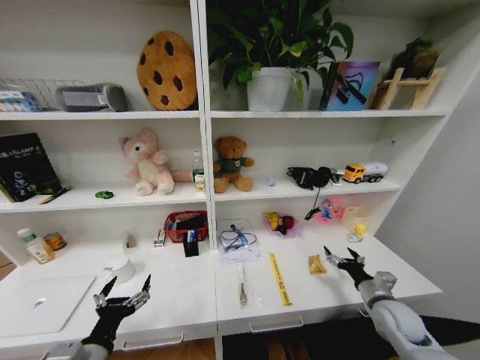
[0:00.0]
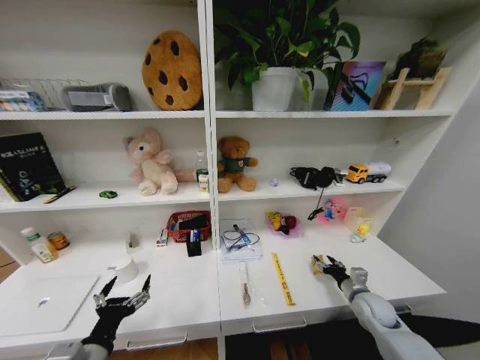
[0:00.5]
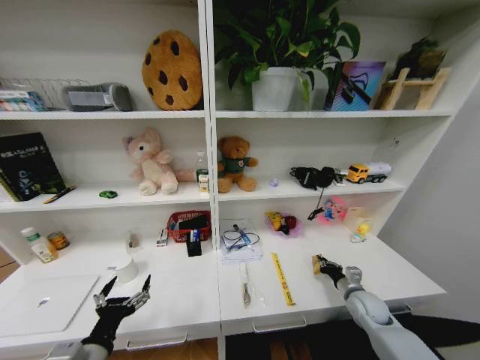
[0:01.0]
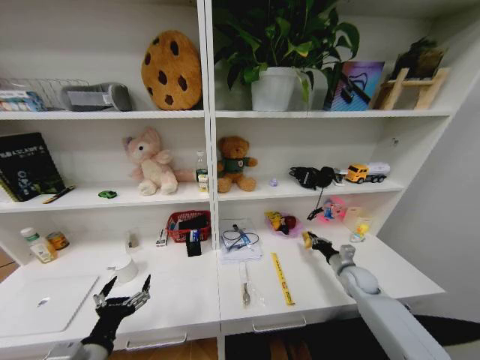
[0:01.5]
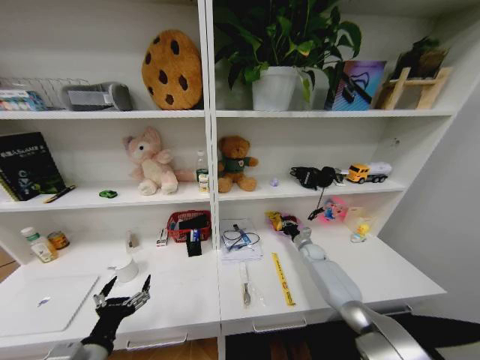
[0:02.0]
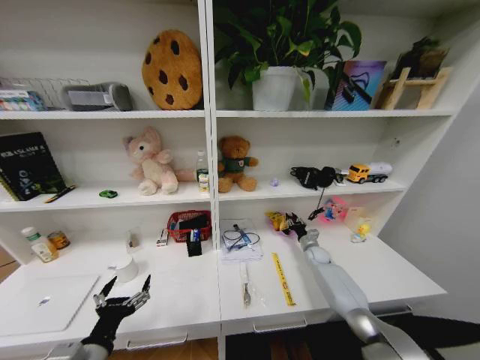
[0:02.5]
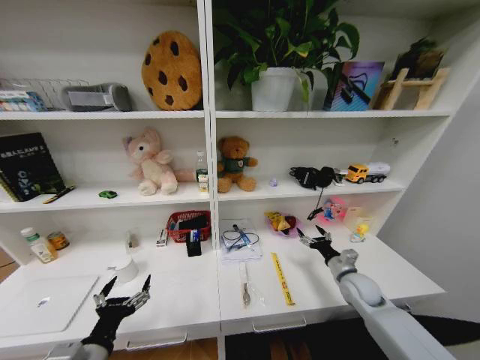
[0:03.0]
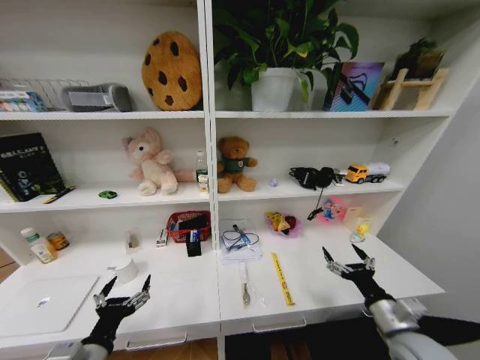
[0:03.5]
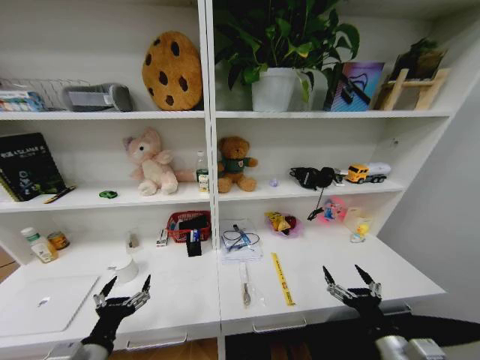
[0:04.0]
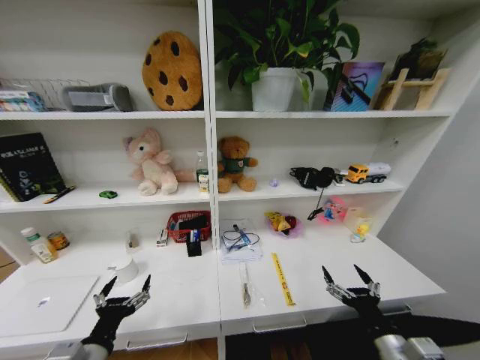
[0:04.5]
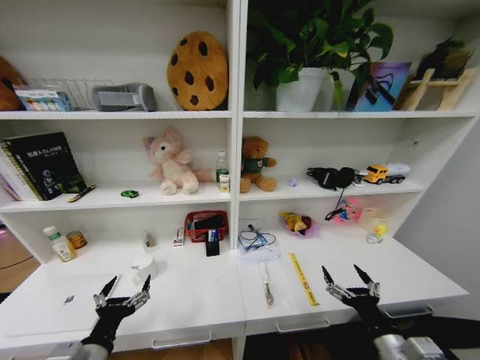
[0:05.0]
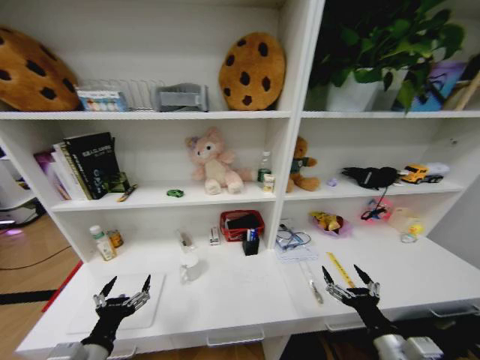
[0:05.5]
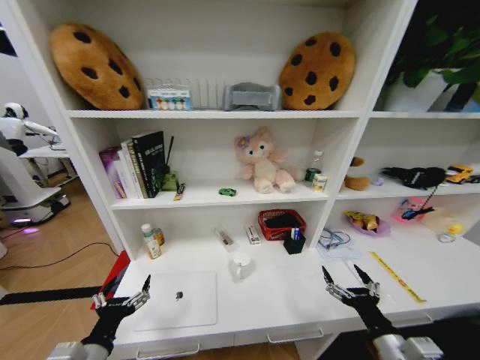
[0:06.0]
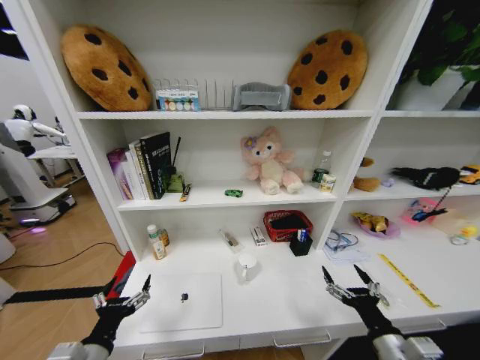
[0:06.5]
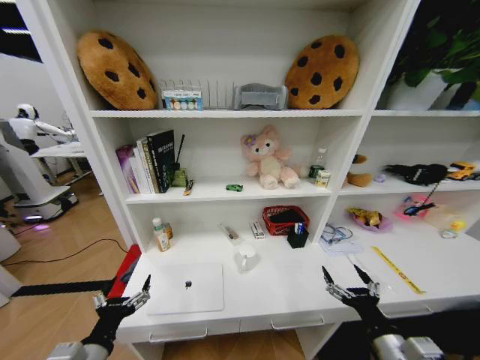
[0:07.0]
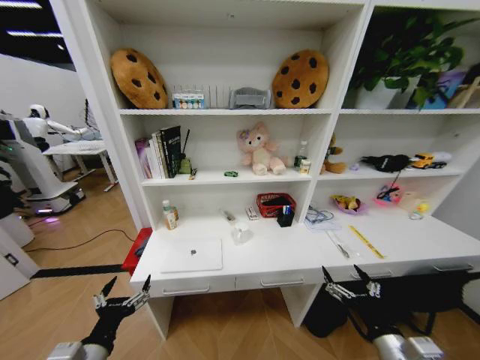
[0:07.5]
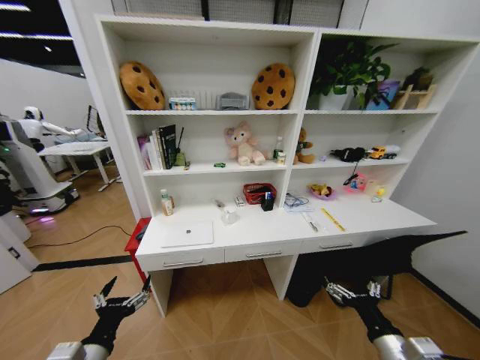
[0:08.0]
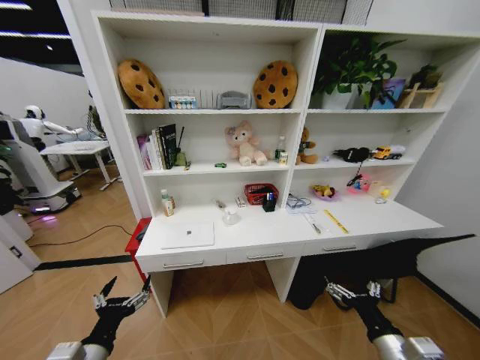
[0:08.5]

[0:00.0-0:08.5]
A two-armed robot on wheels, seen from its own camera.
Task of the whole recording: Organize the objects on the table.
0:00.0 to 0:02.0: The right gripper travels forward by about 25 cm, and closes its fingers.
0:02.0 to 0:04.0: The right gripper moves backward, about 40 cm, and opens its fingers.

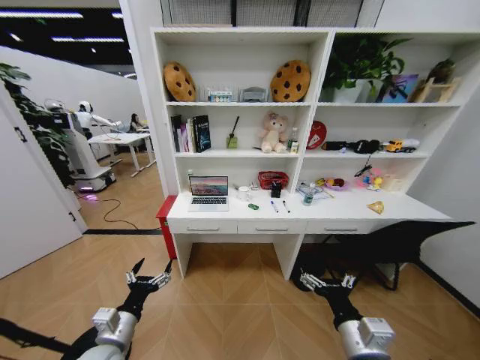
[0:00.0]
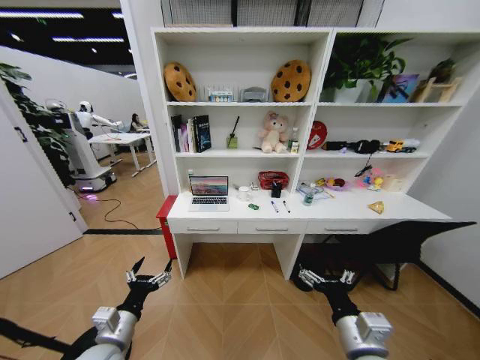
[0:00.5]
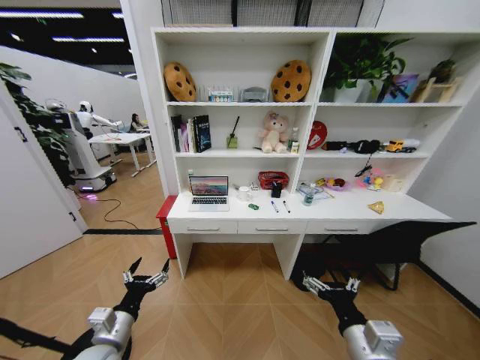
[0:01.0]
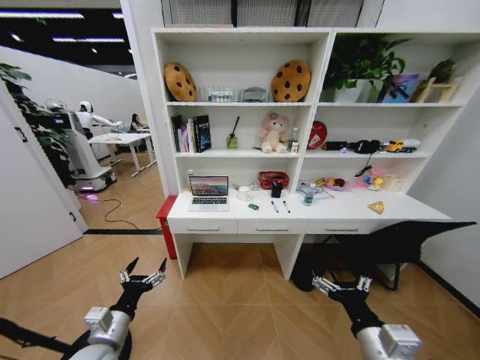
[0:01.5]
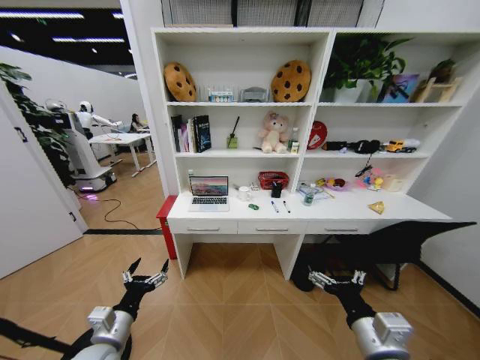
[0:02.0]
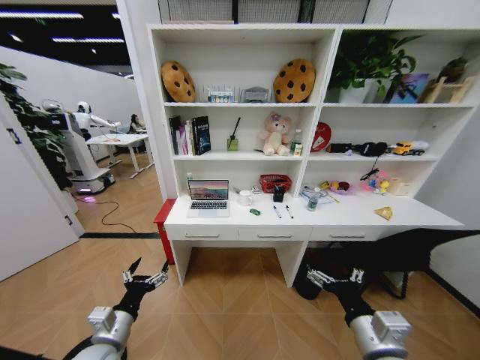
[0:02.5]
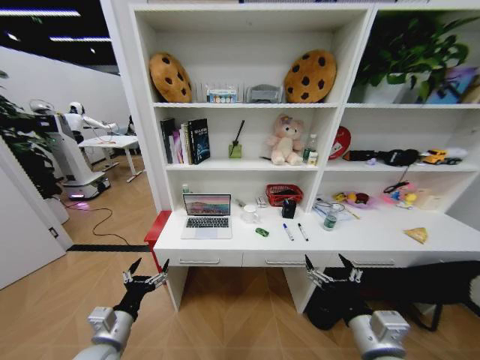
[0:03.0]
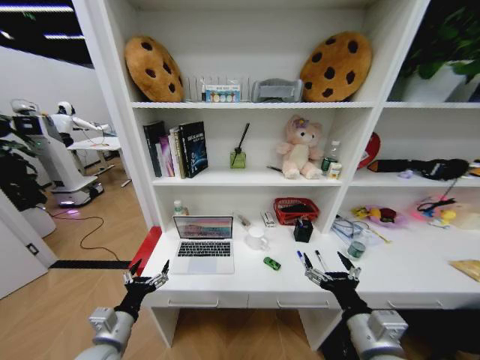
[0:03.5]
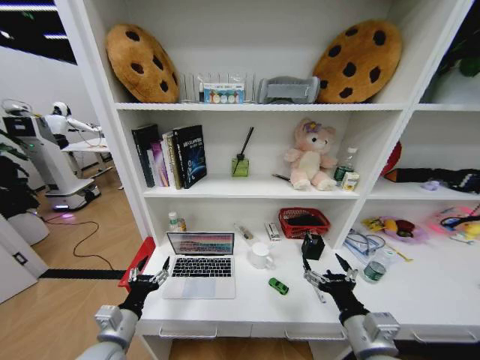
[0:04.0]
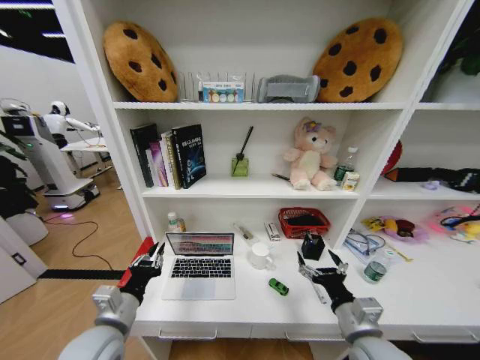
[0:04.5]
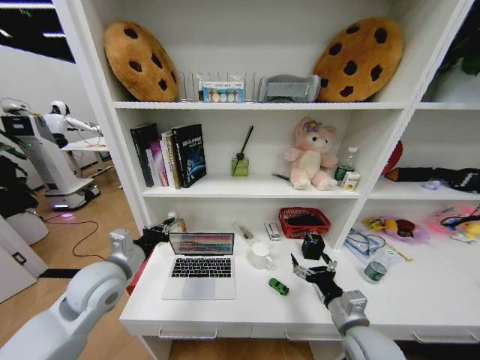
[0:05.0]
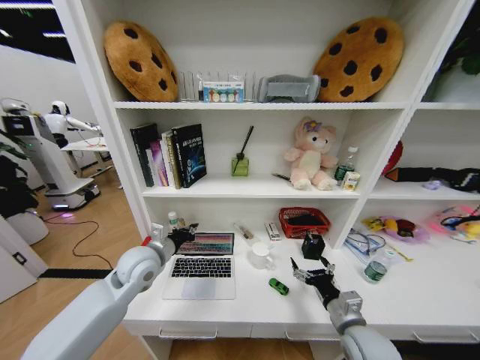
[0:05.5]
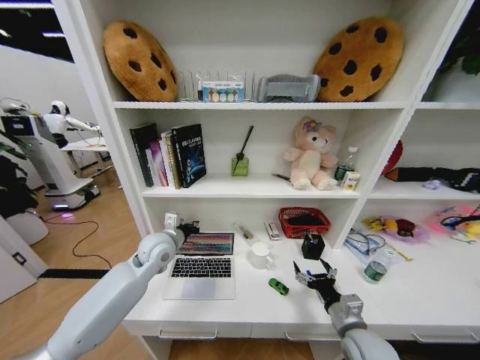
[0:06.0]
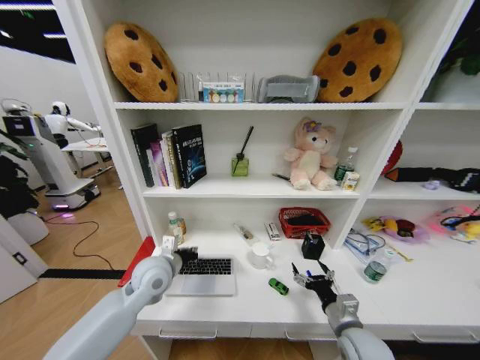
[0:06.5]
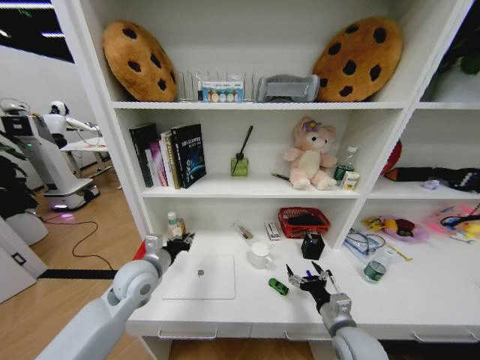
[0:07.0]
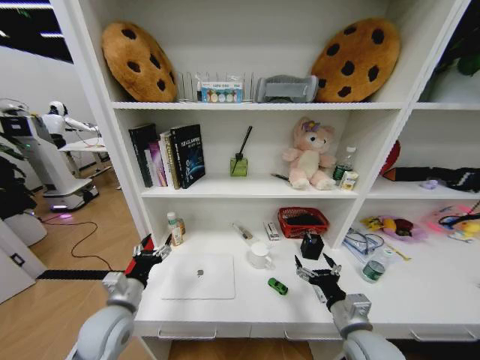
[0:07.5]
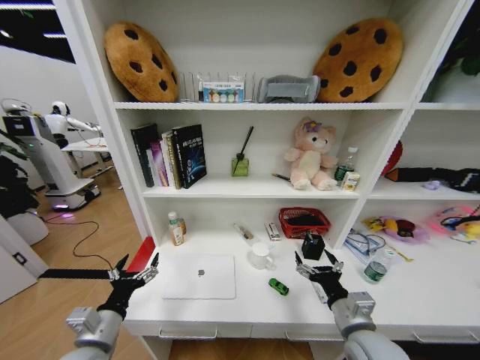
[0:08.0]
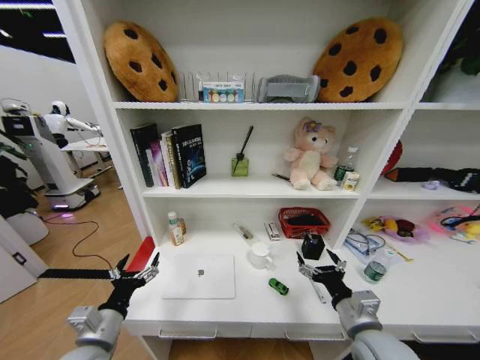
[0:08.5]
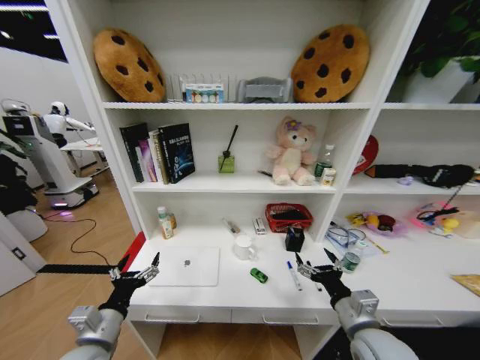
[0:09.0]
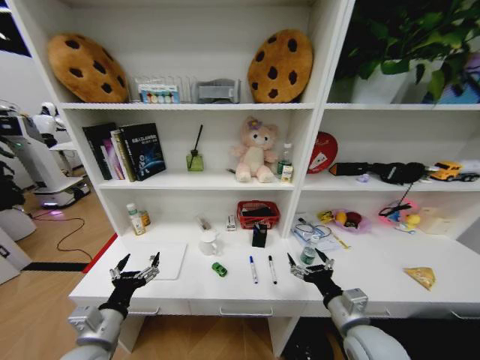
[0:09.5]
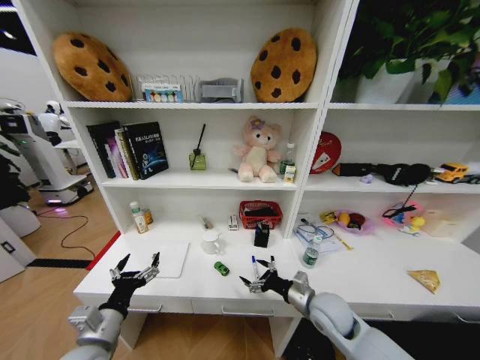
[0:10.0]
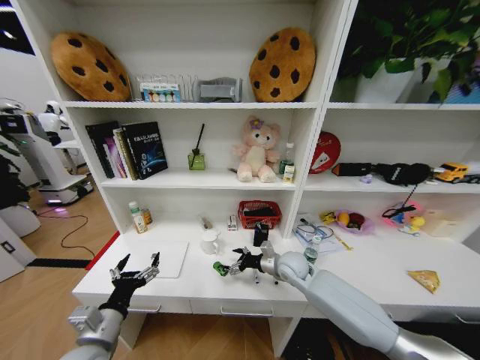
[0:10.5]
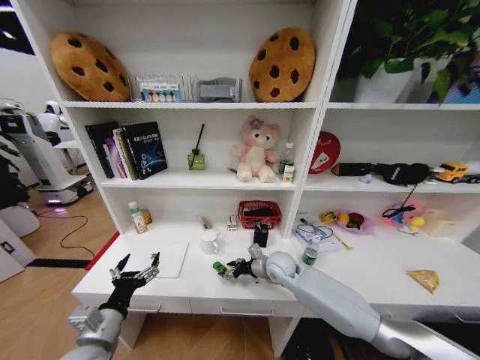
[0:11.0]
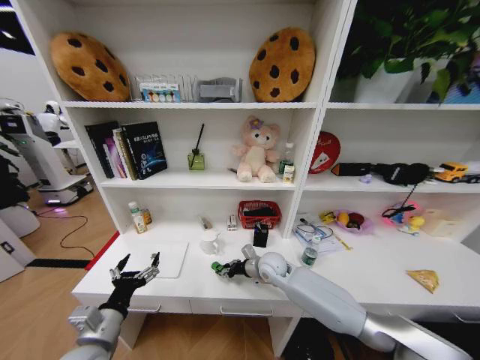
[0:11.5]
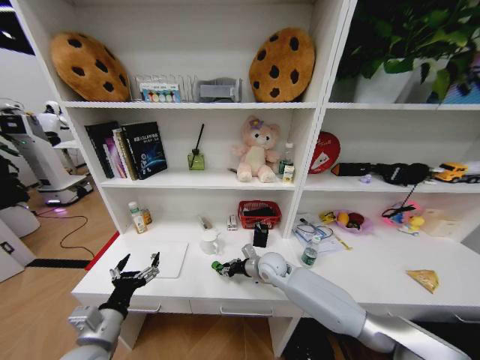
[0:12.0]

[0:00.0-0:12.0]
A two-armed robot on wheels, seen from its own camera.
Task of the whole recording: Organize the objects on the table.
0:04.0 to 0:06.0: The right gripper moves downward and forward, roughly 10 cm, while the left gripper moves forward and upward, some 25 cm, and closes up.
0:06.0 to 0:08.0: The left gripper heads backward, covering about 25 cm, and opens its fingers, while the right gripper heads upward, covering roughly 5 cm.
0:08.0 to 0:10.0: The right gripper travels forward and downward by some 10 cm.
0:10.0 to 0:12.0: The right gripper moves forward and to the left, roughly 20 cm, and closes its fingers.

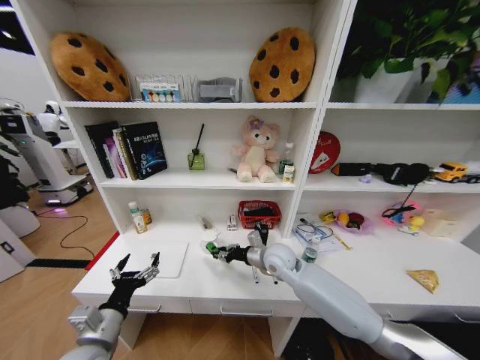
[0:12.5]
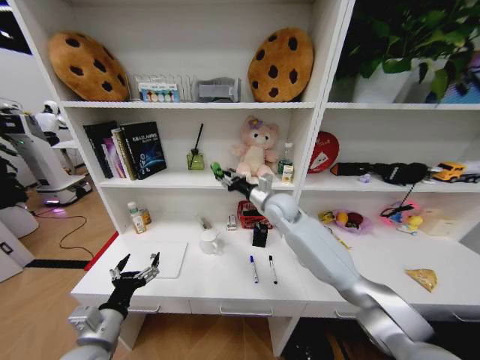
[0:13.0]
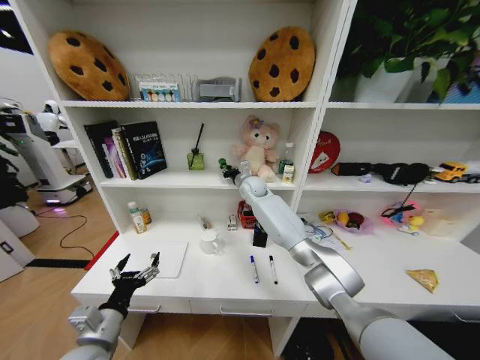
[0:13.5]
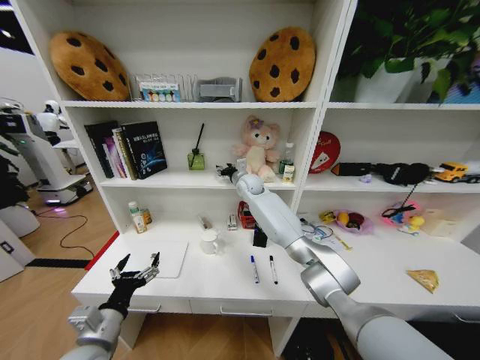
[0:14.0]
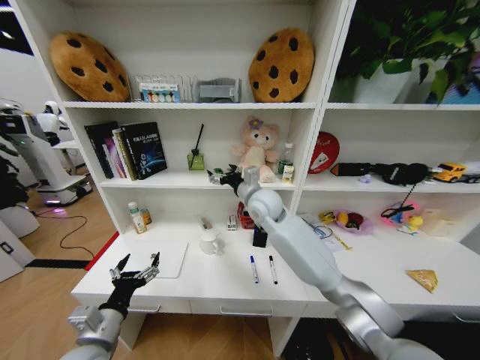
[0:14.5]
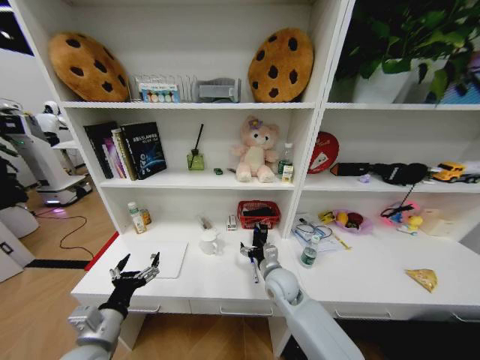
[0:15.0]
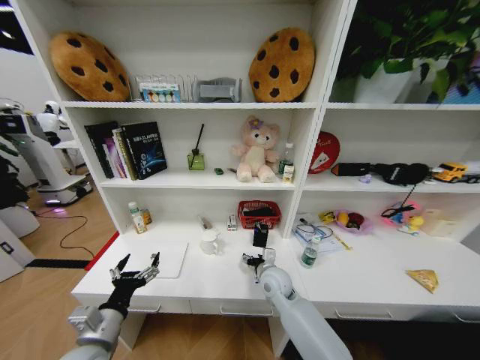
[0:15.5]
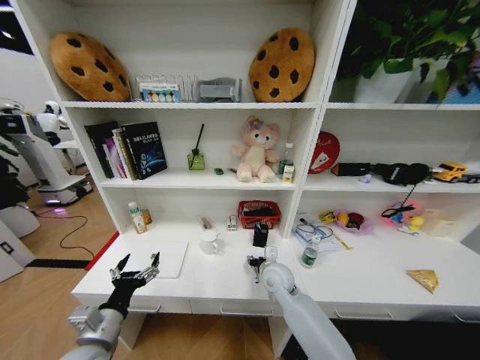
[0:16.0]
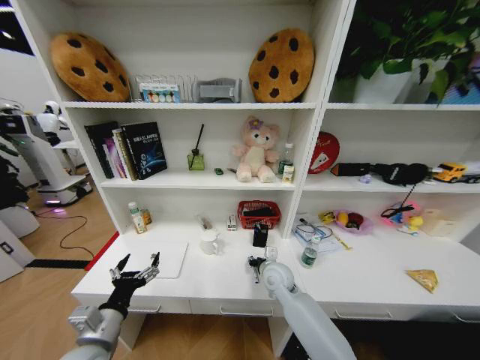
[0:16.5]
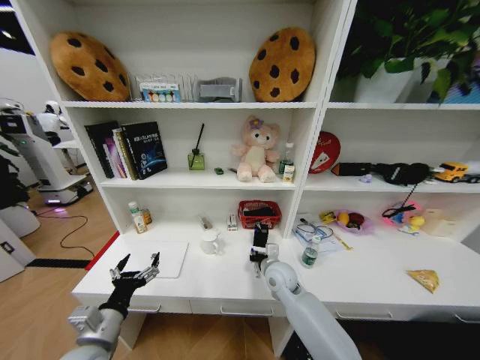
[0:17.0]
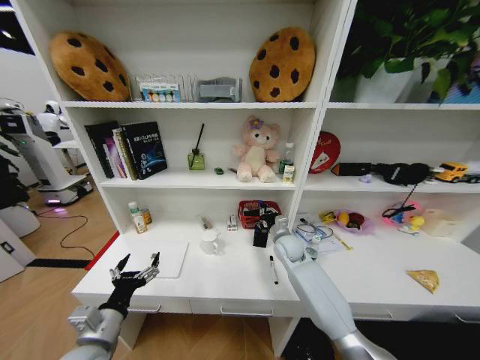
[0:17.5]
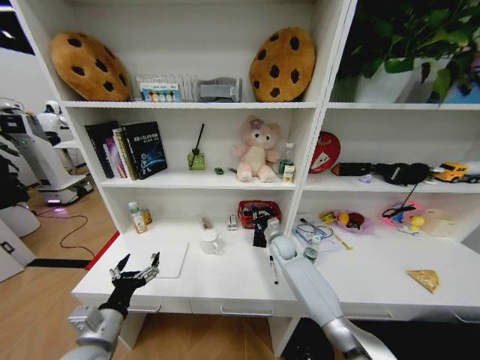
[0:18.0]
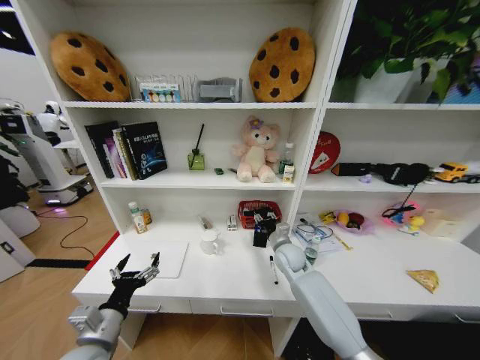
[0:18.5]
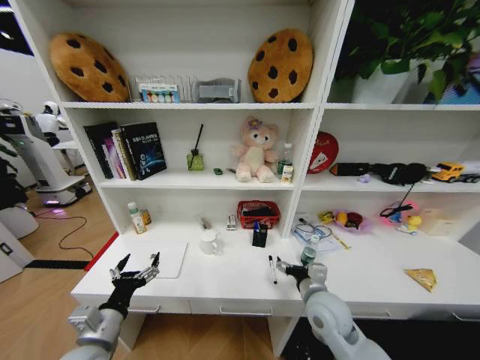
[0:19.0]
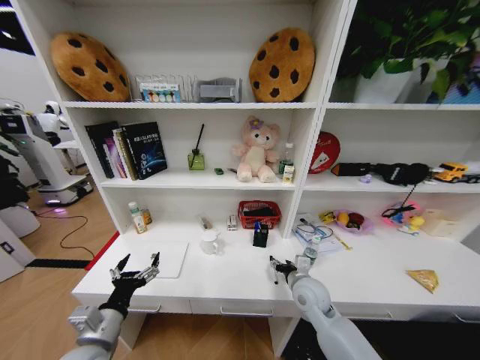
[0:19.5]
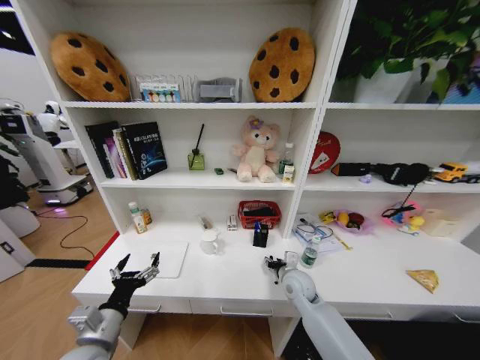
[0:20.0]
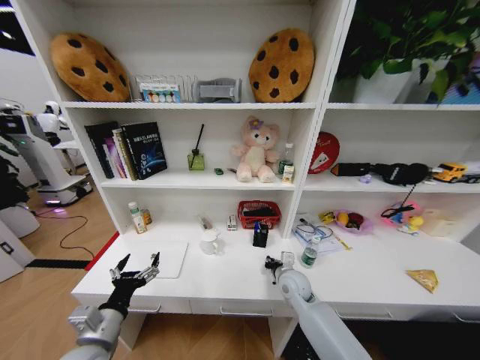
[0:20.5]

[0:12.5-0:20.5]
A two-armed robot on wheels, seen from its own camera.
Task of the whole recording: Organize the objects on the table.
0:12.5 to 0:14.5: The right gripper is displaced upward by some 15 cm, travels forward and back again, roughly 20 cm each way, and opens its fingers.
0:14.5 to 0:16.5: The right gripper shifts some 25 cm downward, and closes its fingers.
0:16.5 to 0:18.5: The right gripper is displaced forward and to the right by roughly 10 cm.
0:18.5 to 0:20.5: The right gripper travels backward by about 10 cm, and opens, then closes once more.
